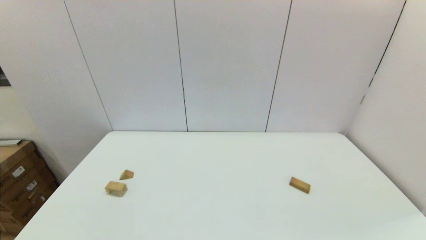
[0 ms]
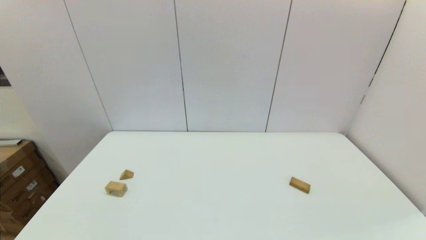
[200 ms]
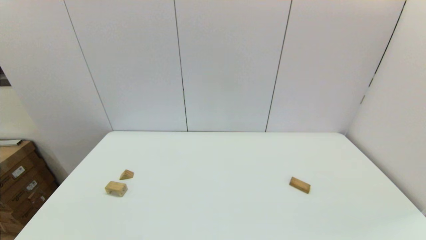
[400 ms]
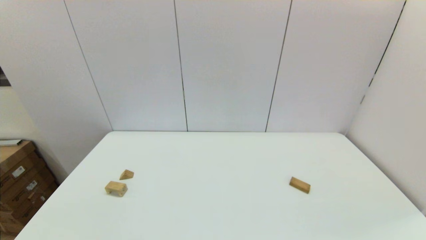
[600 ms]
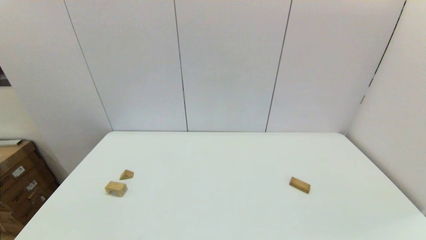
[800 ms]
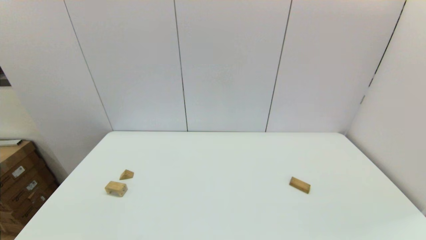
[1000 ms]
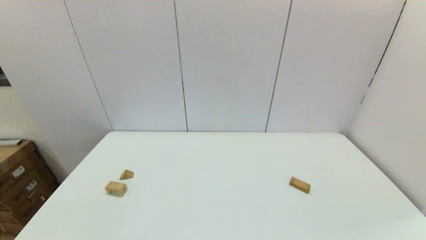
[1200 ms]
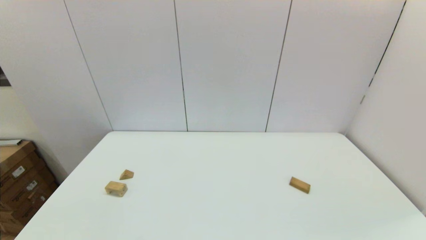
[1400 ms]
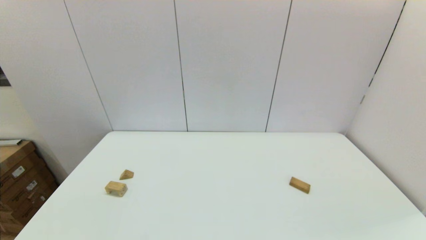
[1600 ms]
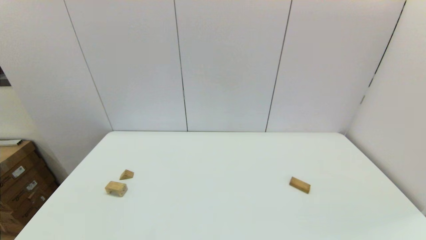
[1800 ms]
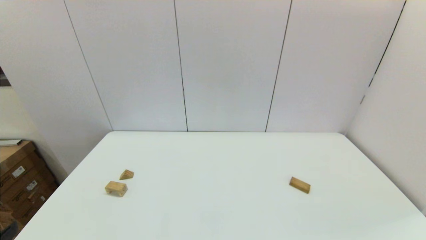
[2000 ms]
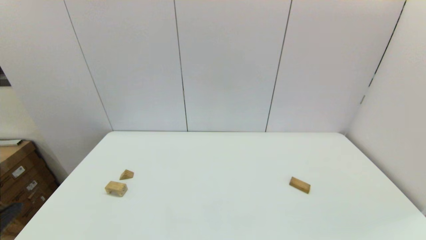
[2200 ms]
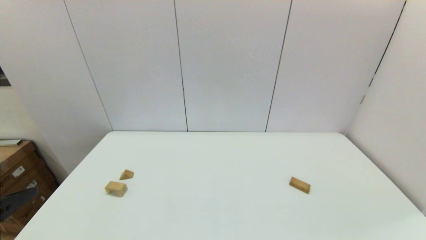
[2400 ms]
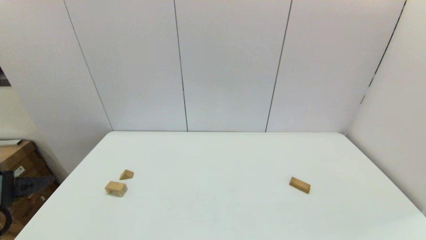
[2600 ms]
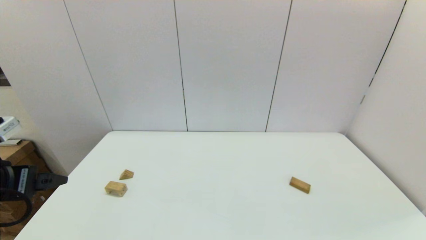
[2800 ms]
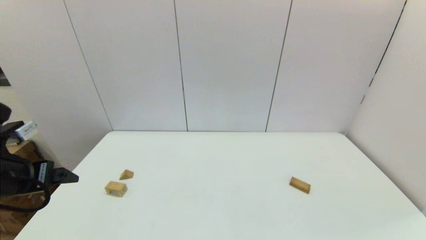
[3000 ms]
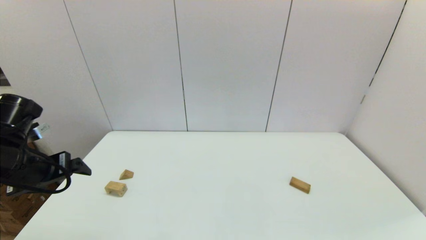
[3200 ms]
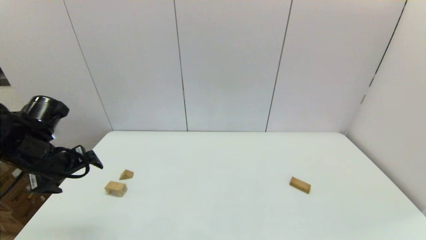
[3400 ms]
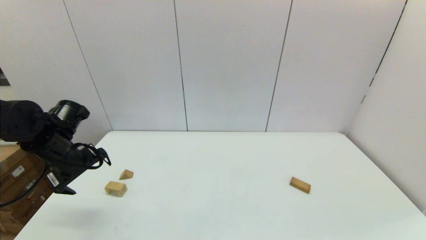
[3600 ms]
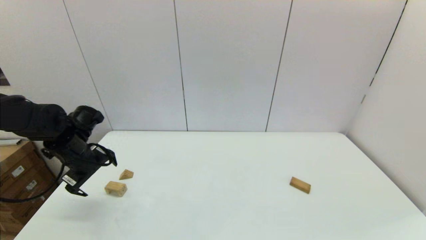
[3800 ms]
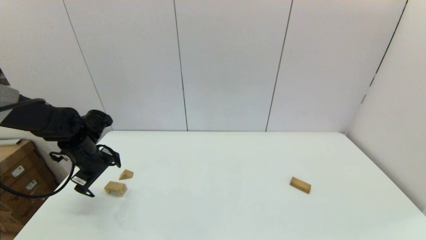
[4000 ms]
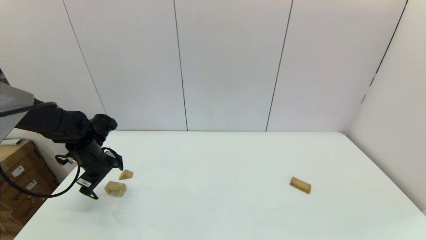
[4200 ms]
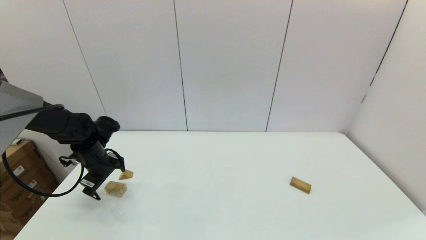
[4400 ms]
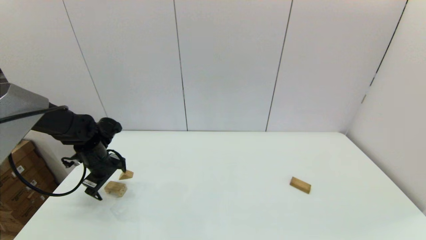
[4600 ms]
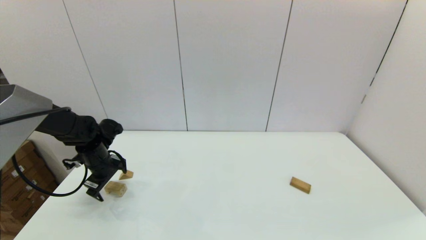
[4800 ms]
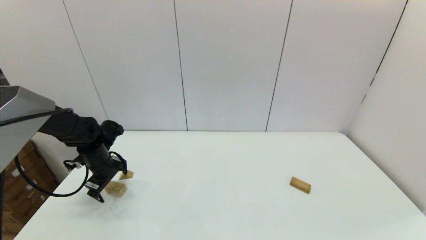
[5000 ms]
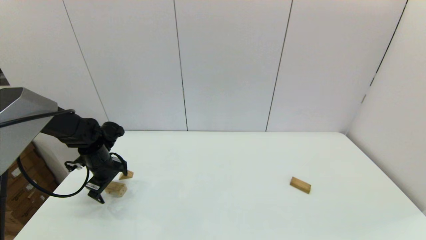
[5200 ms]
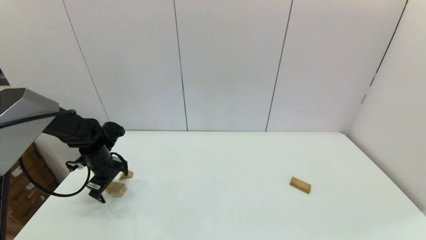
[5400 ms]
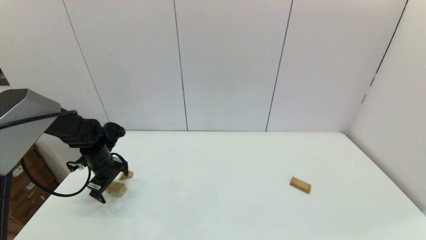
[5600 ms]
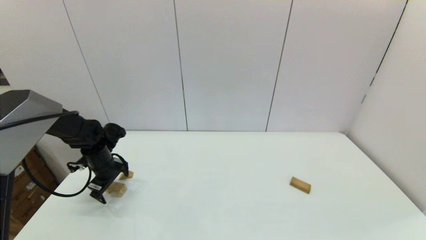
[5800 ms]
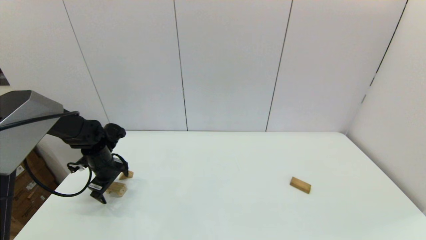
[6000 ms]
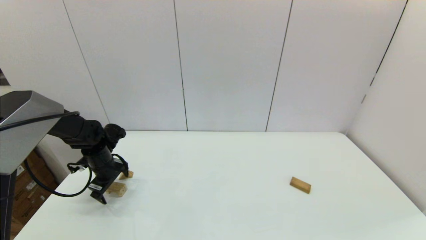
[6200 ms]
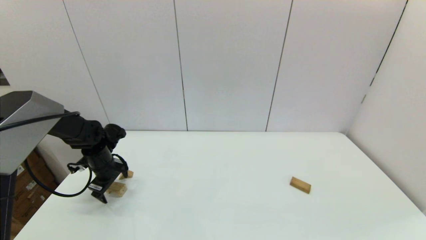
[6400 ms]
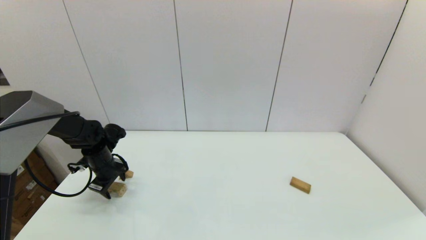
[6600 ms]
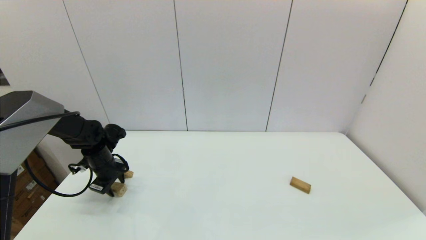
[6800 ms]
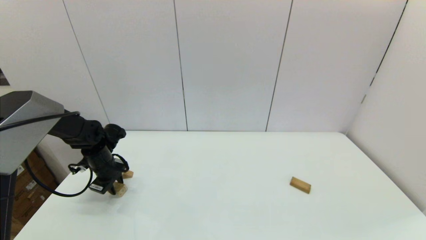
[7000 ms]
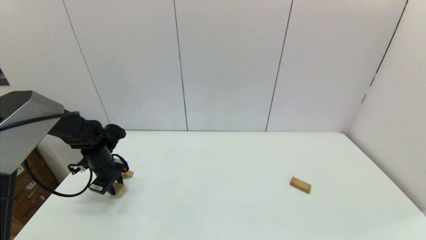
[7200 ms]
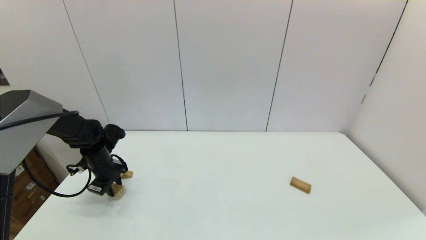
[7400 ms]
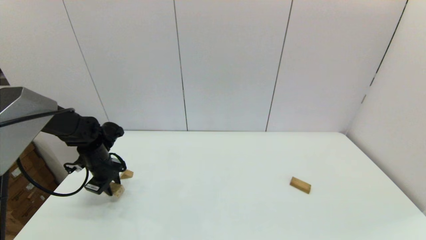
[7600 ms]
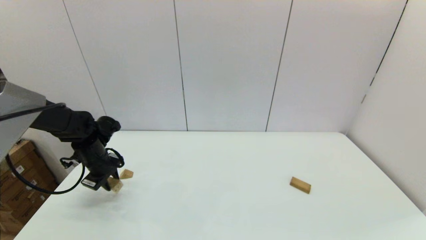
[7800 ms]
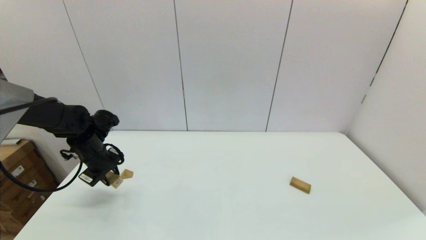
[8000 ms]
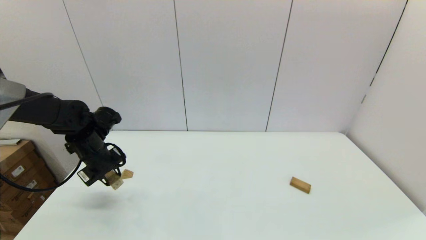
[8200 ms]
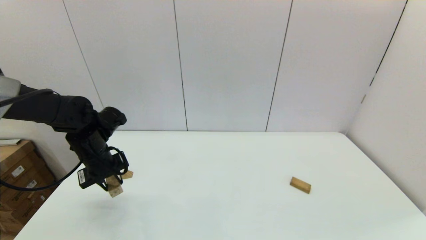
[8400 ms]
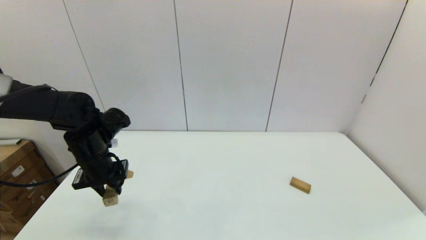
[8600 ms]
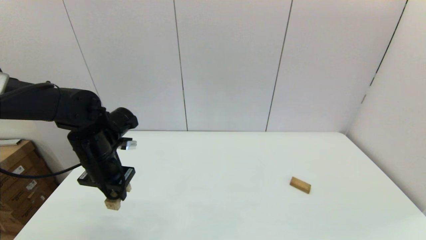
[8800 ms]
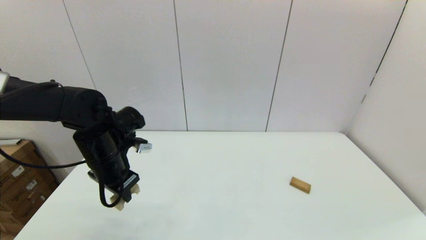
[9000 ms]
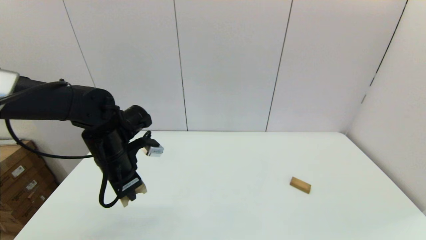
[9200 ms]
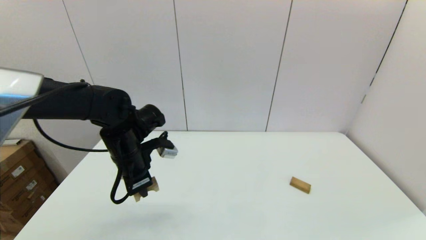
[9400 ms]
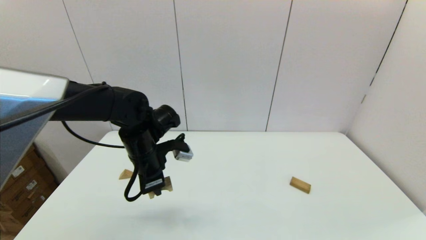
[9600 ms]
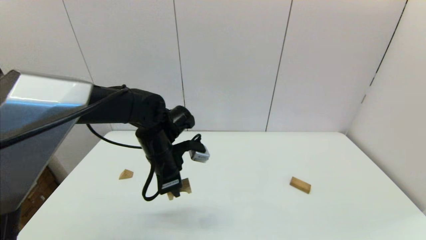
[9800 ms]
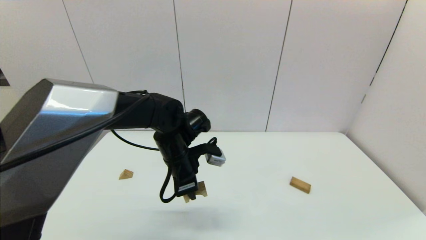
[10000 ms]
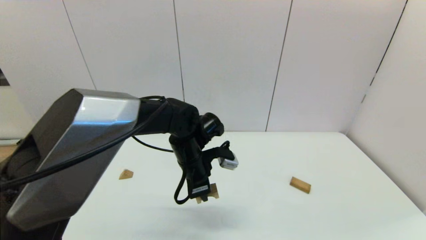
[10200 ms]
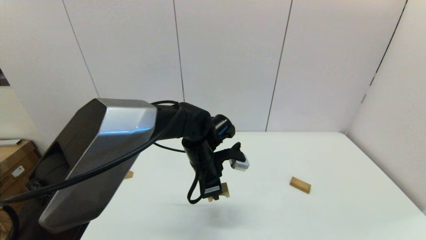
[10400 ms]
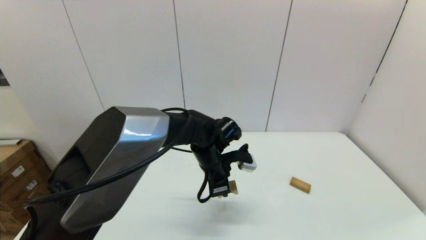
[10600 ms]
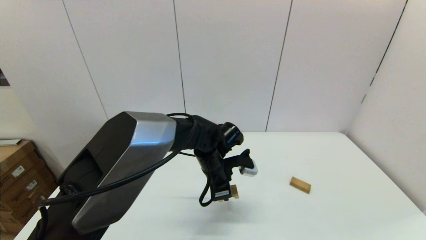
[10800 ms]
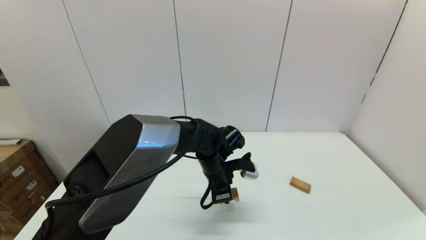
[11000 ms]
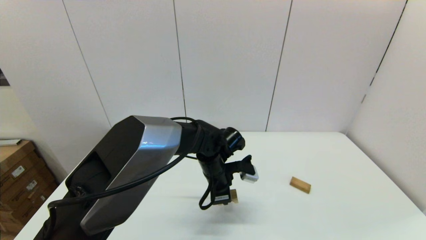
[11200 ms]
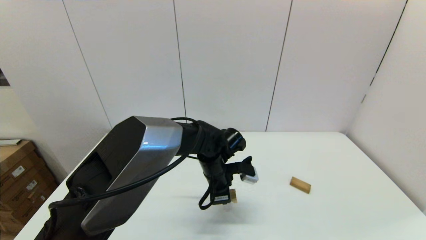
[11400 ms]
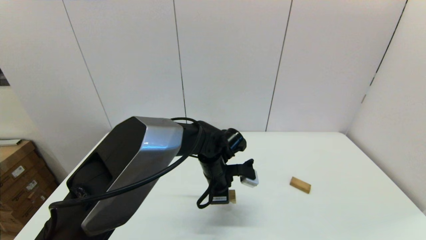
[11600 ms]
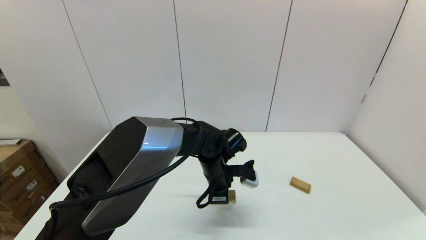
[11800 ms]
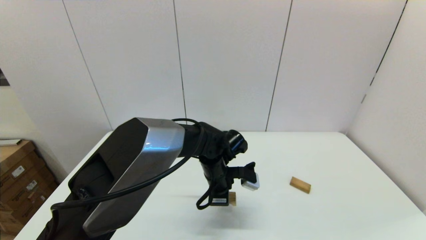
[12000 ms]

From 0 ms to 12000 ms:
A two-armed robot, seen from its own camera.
Task of the whole recording: place the arched building blocks in the center of the table, set up the rectangular building blocks, and then set up the triangular building blocks.
Step, from 2000 ms to 7000 ms: Grasp the arch-shaped block with the left gripper.
From 1600 ms to 3000 ms: The left gripper heads forward and upward, covering some 25 cm.
From 3000 ms to 4400 ms: The left gripper travels forward and downward by roughly 20 cm.
From 4400 ms to 6000 ms: The grippers move only a little.
From 6000 ms to 7600 ms: The left gripper closes up.
From 7600 ms to 9000 ms: The left gripper shifts some 15 cm to the right, upward and backward.
From 9000 ms to 10400 ms: The left gripper goes approximately 20 cm to the right.
From 10400 ms to 12000 ms: The left gripper ends up some 5 cm from where it was.

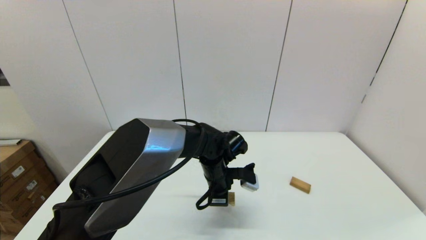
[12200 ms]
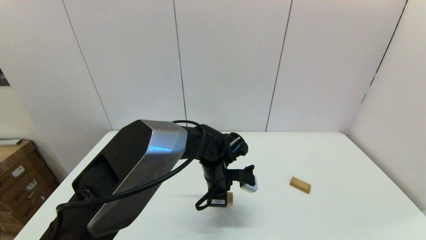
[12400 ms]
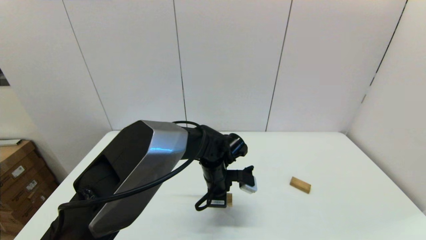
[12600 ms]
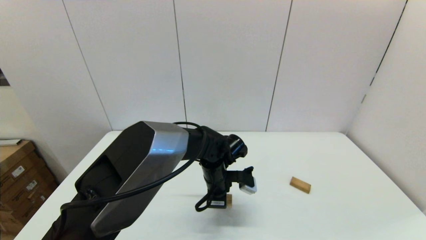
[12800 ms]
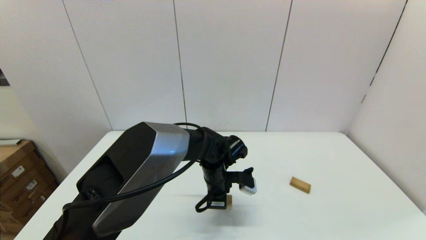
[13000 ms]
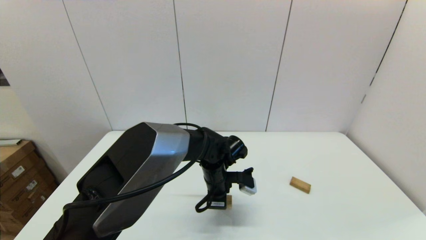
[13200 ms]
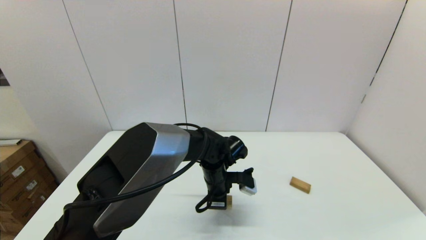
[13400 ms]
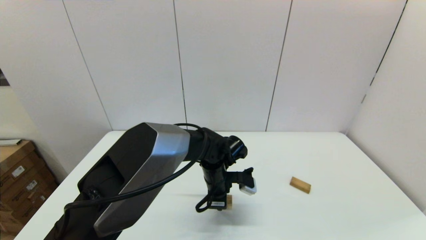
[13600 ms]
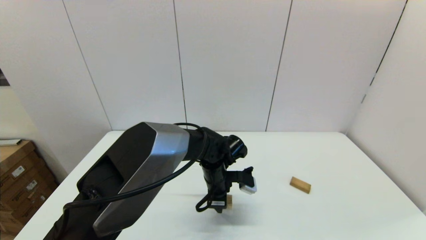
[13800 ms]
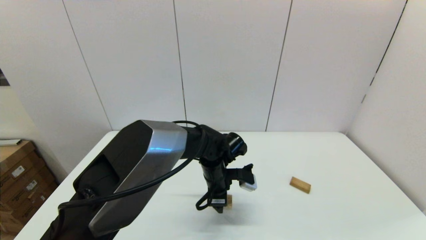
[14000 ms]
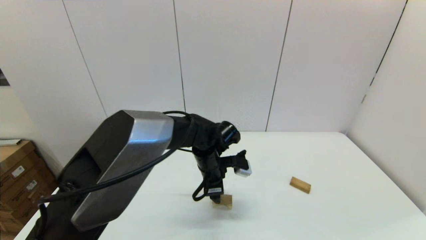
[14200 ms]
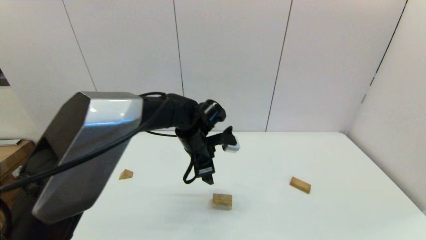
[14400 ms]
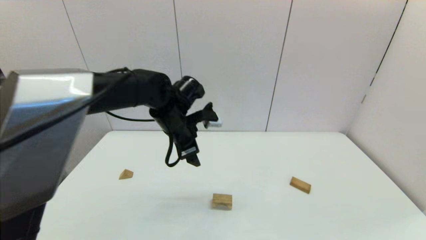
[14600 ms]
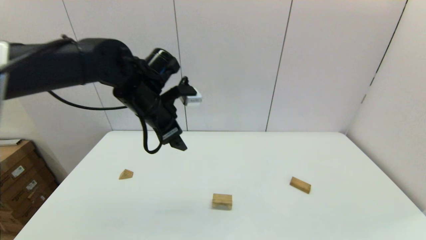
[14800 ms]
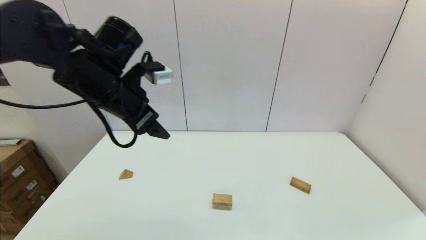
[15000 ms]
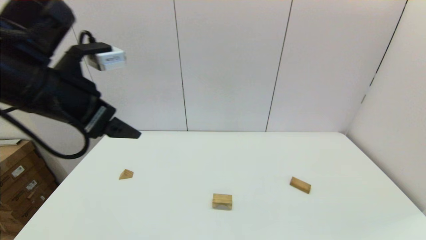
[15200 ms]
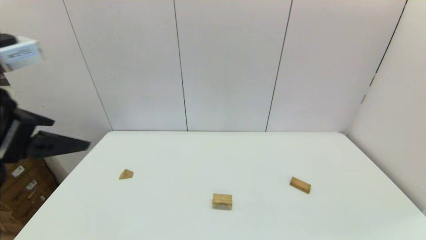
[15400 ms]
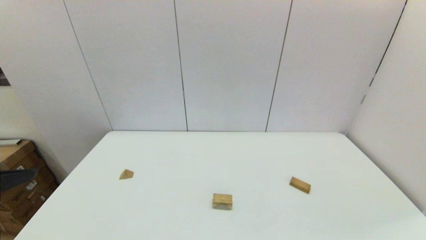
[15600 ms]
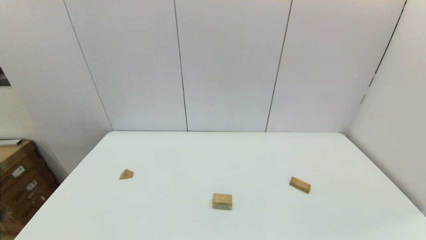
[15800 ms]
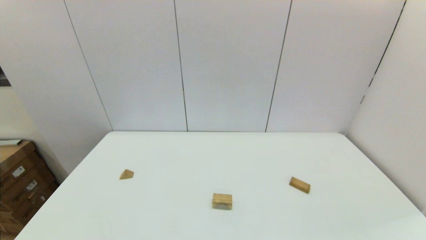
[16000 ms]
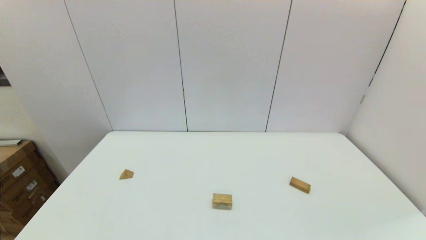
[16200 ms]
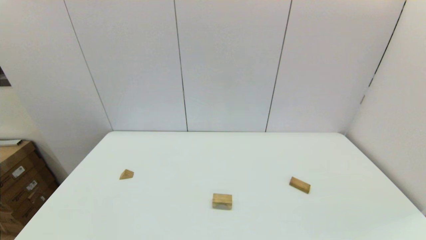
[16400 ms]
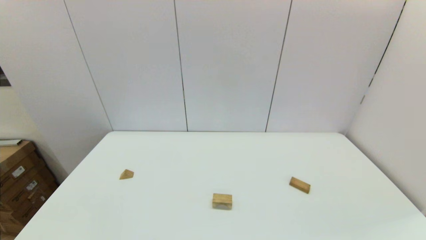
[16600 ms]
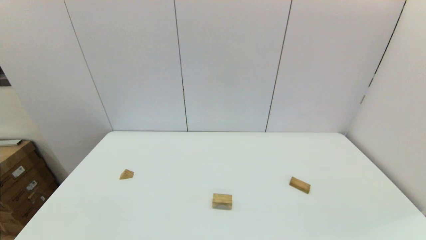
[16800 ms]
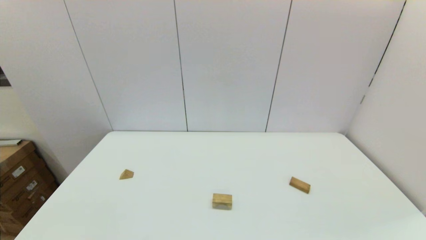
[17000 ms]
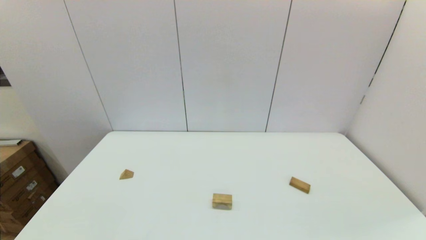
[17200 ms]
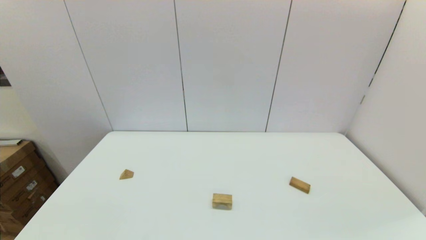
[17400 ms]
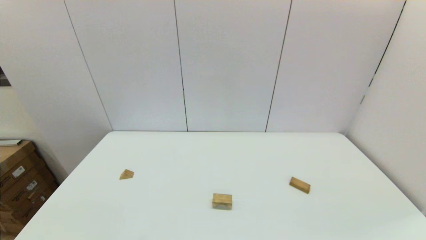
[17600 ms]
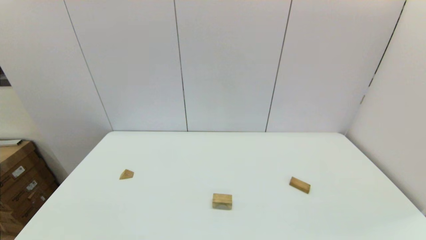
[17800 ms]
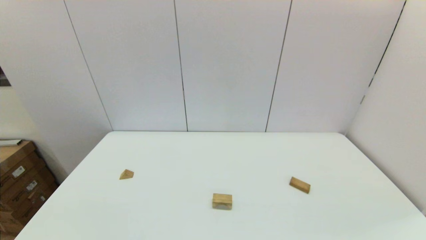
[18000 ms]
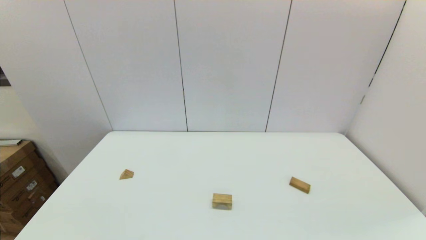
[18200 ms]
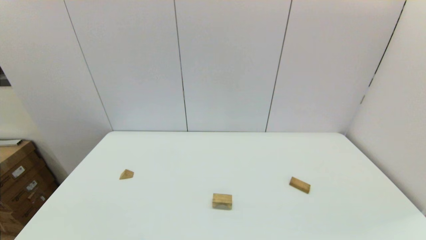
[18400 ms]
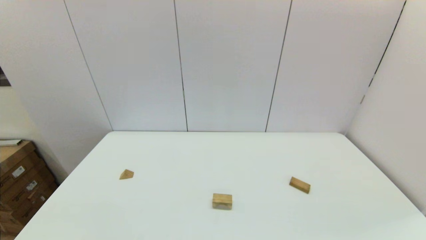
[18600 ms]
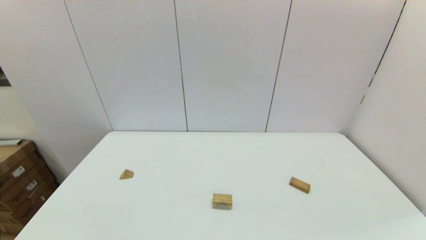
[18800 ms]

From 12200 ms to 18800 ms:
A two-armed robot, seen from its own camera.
Task of the whole recording: place the arched building blocks in the center of the table, set up the rectangular building blocks, and then set up the triangular building blocks.
From 12200 ms to 13800 ms: The left gripper opens.
From 13800 ms to 15400 ms: The left gripper is displaced upward, to the left and backward by some 40 cm, and opens.
From 15400 ms to 17200 ms: The left gripper travels downward and backward by approximately 30 cm.
